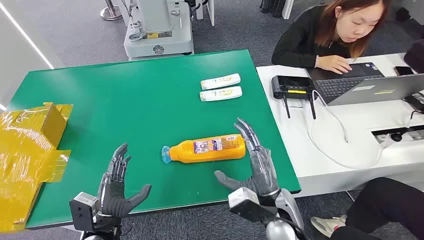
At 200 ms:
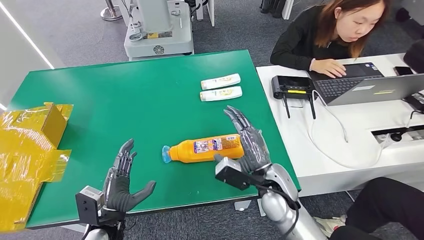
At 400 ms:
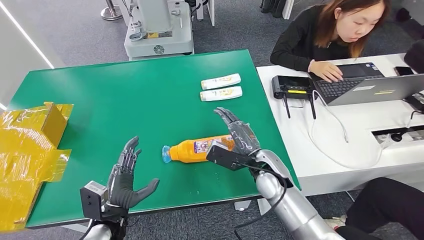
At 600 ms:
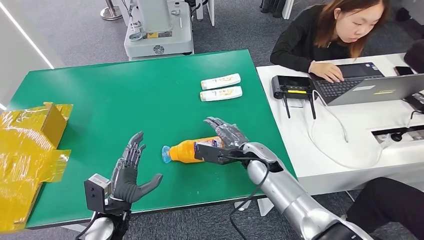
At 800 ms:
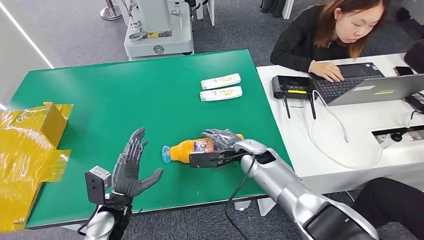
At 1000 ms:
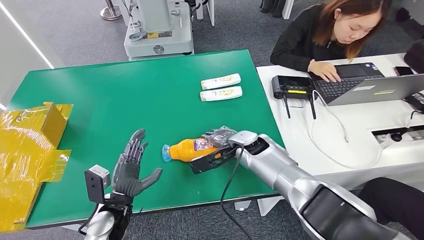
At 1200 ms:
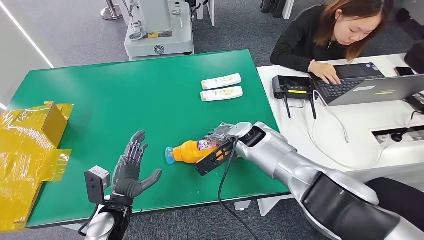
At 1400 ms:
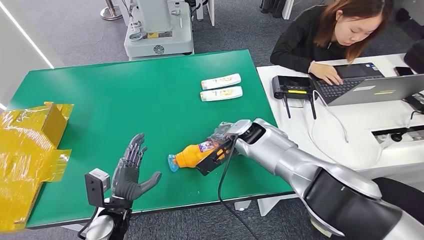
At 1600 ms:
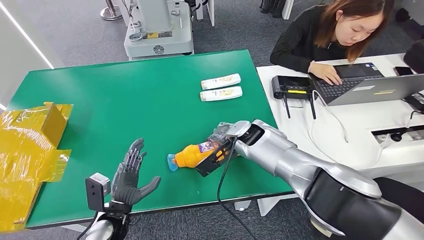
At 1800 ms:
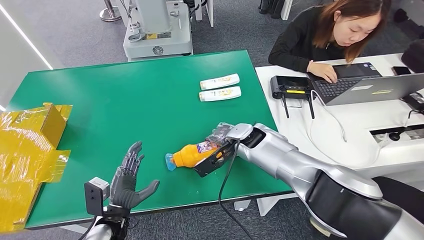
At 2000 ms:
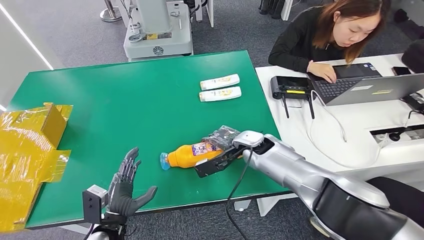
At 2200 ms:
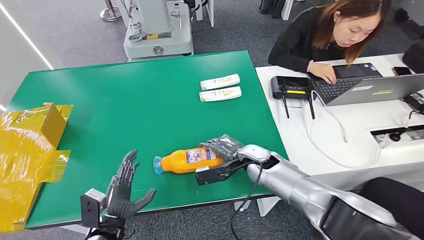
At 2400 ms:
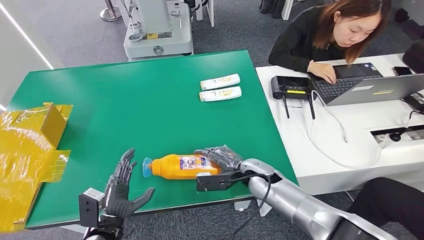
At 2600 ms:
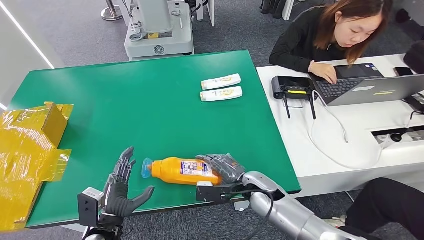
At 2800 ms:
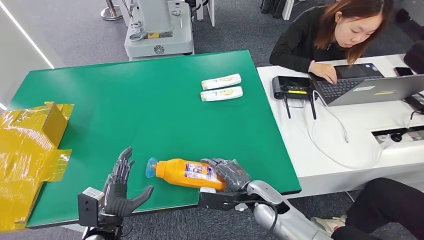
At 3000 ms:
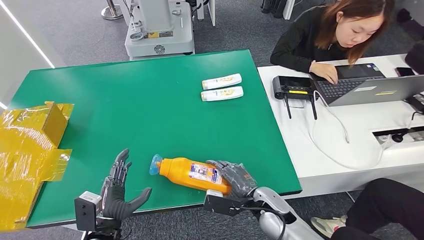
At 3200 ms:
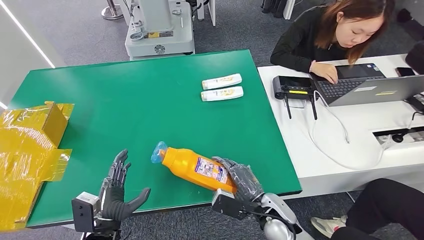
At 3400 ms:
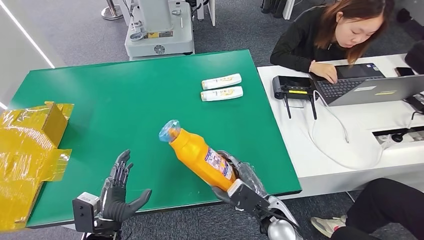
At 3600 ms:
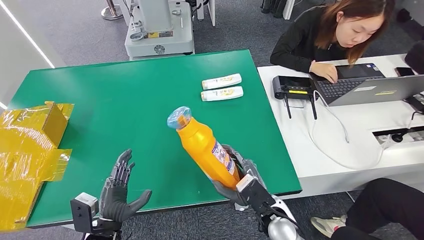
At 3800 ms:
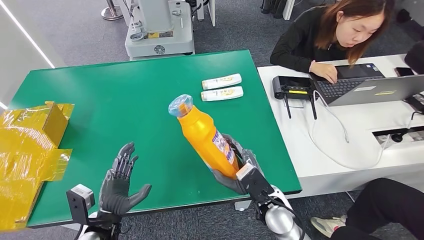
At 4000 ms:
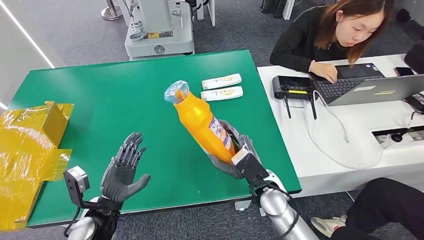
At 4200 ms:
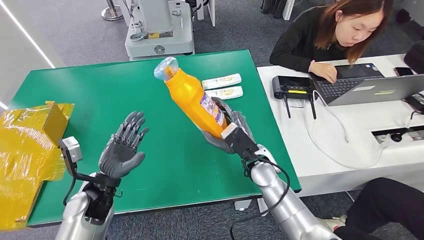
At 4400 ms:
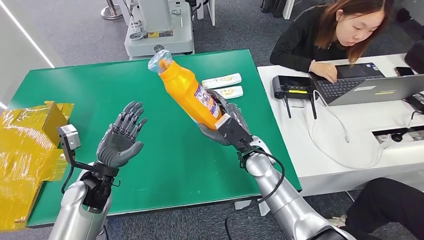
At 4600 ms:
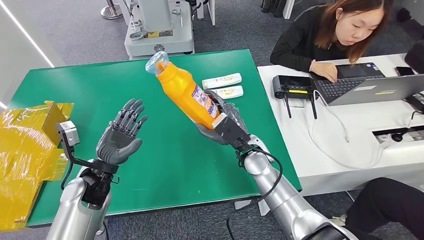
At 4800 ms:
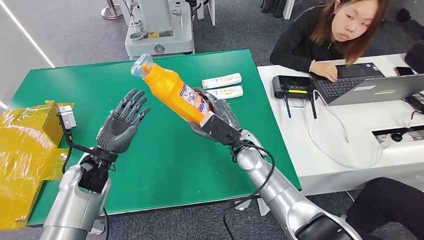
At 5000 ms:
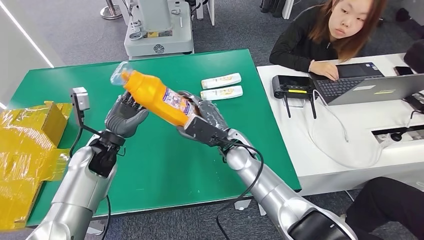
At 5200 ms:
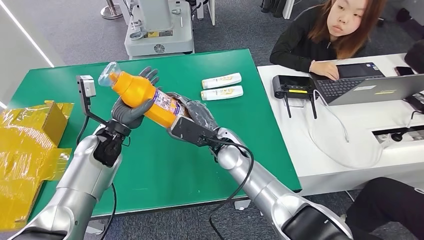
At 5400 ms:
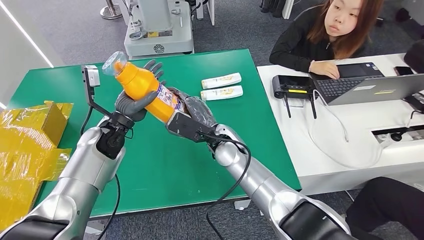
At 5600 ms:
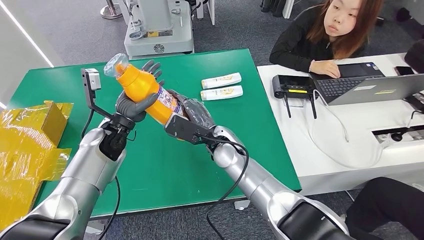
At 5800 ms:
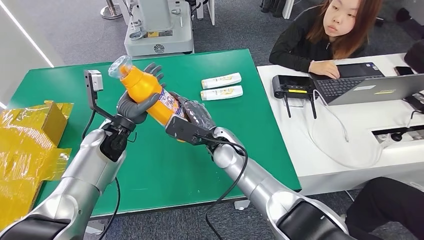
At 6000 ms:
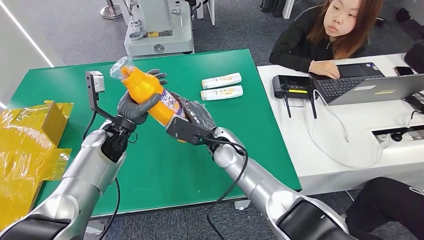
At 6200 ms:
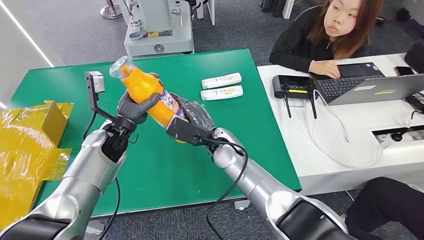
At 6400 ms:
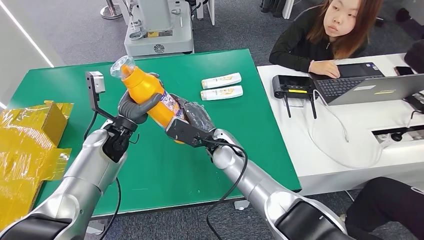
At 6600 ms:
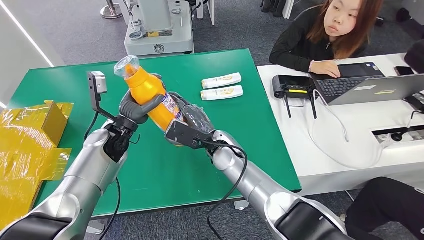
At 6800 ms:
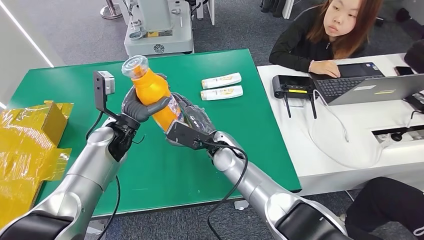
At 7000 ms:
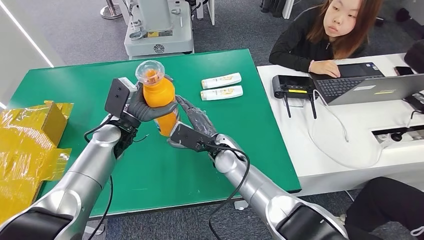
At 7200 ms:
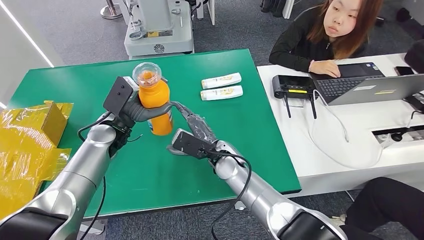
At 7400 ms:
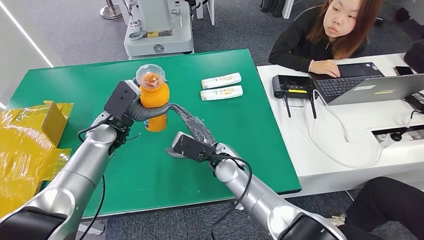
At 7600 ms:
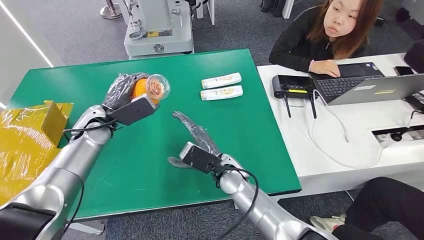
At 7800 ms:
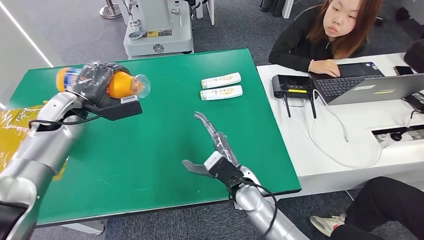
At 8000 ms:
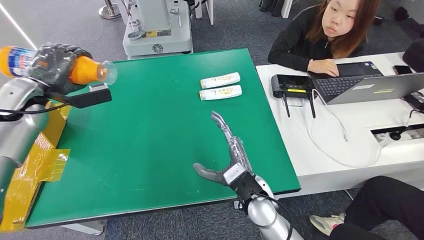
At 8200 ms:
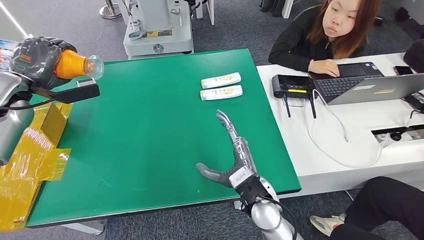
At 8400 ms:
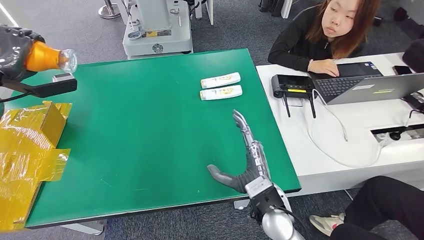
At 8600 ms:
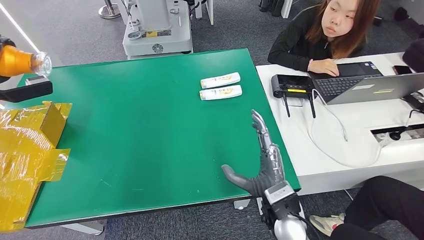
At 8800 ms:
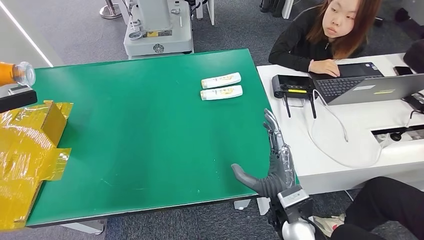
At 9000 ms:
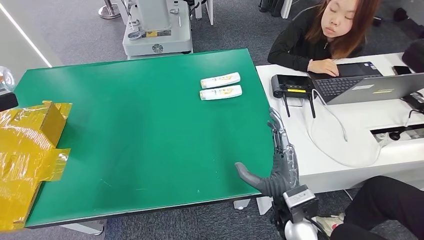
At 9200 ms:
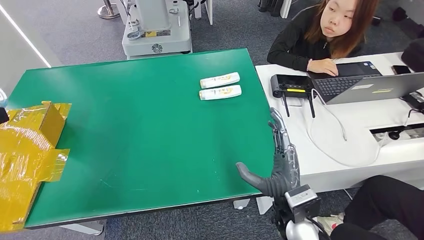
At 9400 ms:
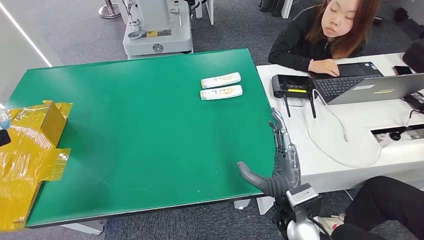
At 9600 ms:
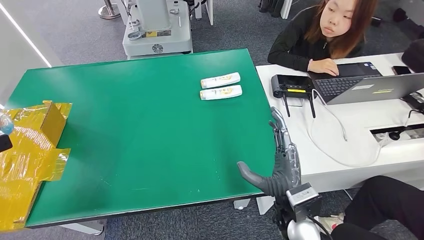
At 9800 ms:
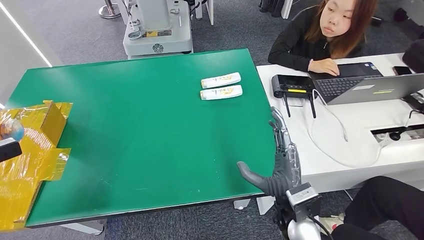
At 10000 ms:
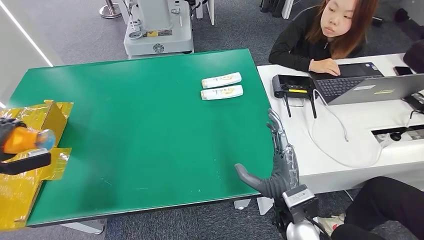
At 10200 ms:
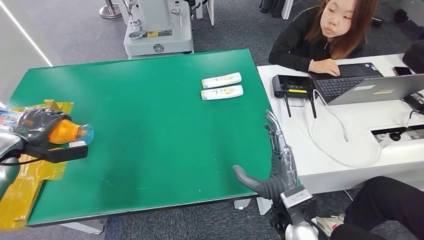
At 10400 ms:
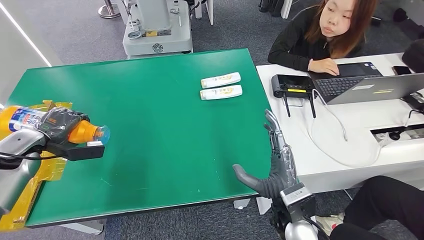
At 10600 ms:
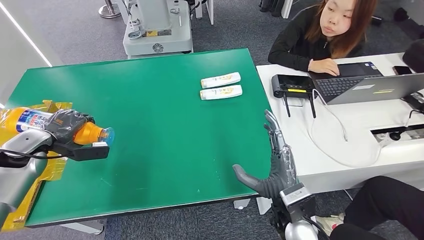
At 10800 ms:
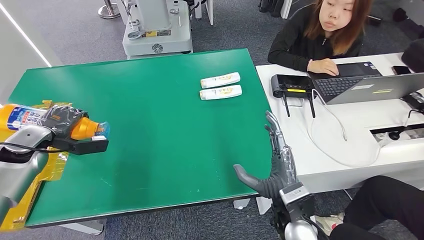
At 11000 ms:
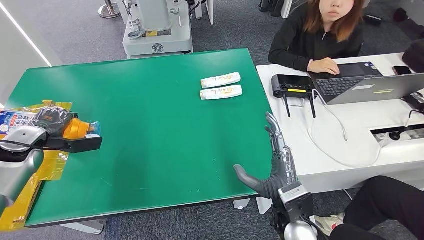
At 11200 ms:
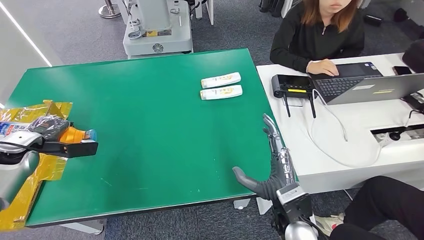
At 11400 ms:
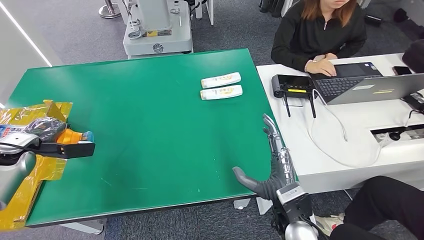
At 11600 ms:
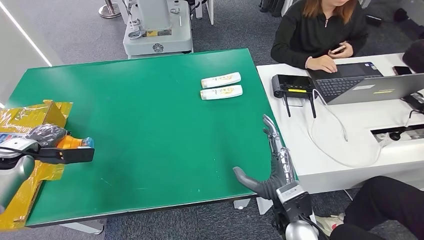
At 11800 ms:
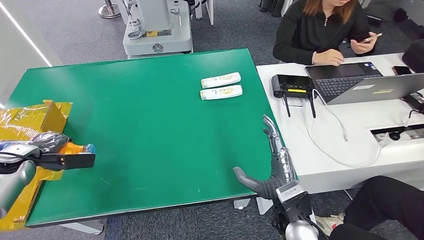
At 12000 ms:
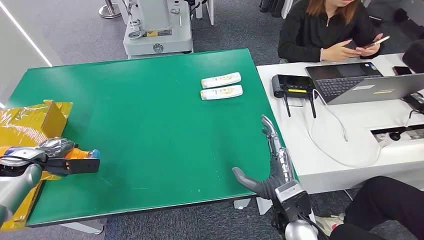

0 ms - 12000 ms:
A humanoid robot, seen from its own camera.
Step, 0 ms - 3800 ms: Pick up the bottle from the table.
3000 ms - 4400 ms: Both hands travel together forward and upward, some 15 cm.
6000 ms - 7600 ms: The right hand is displaced backward and downward by approximately 10 cm. The left hand moves some 5 cm.
9000 ms - 10400 ms: The left hand moves downward and to the right, approximately 20 cm.
10400 ms - 12000 ms: The left hand changes place by some 5 cm.

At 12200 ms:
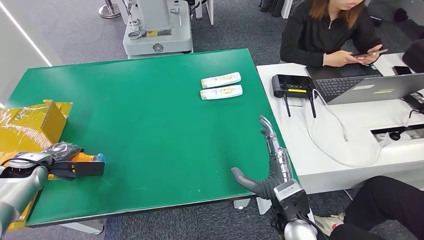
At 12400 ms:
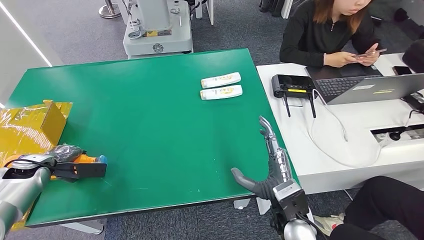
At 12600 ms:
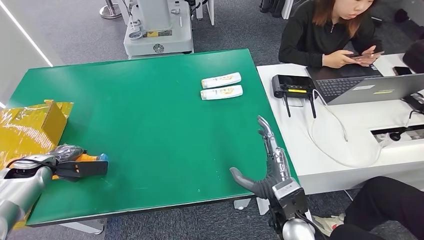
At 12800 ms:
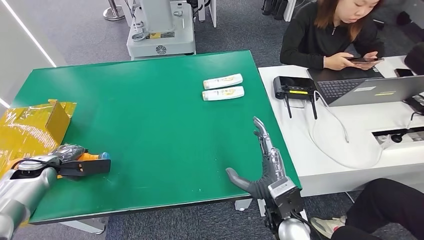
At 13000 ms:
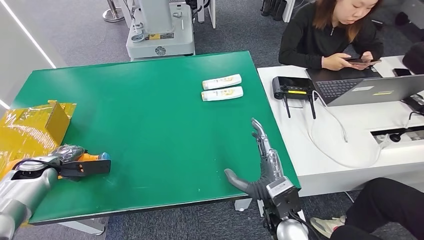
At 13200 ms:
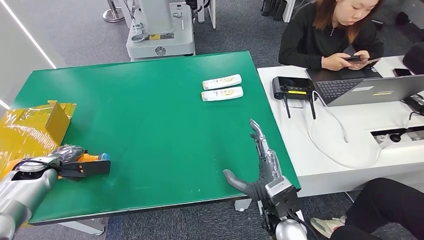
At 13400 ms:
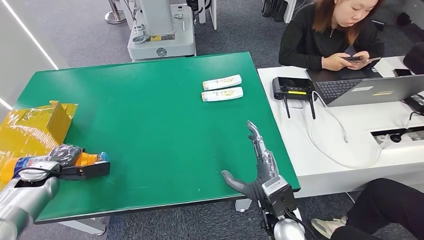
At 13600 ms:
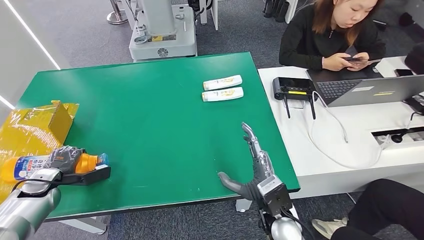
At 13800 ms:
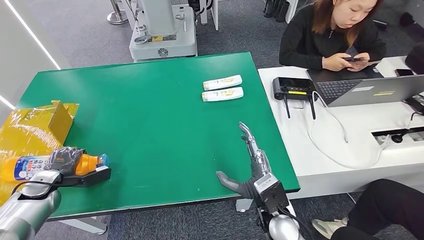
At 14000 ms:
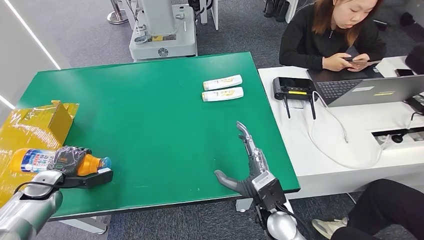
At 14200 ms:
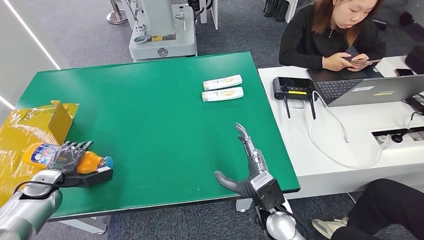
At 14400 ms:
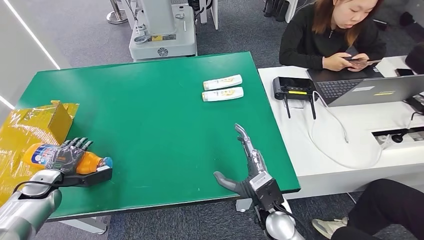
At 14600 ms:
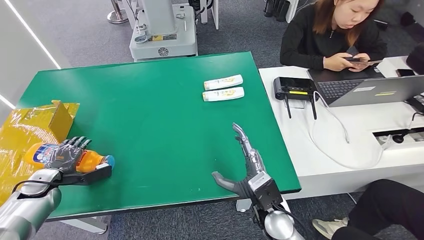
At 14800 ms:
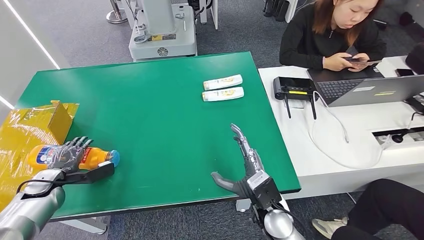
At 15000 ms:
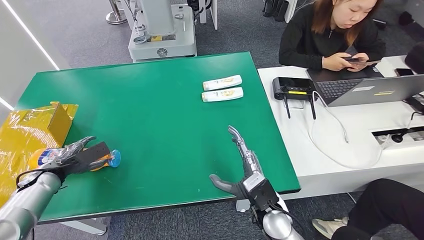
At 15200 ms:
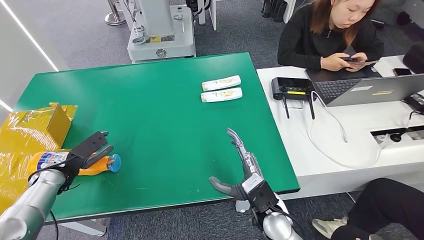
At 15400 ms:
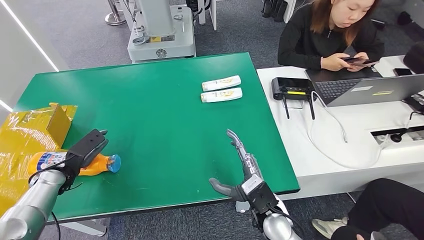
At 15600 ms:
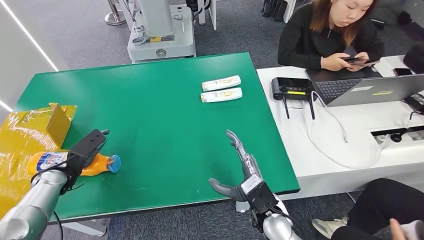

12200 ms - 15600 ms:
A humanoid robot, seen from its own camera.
Step, 12200 ms - 15600 ms: Turn the bottle to the front side.

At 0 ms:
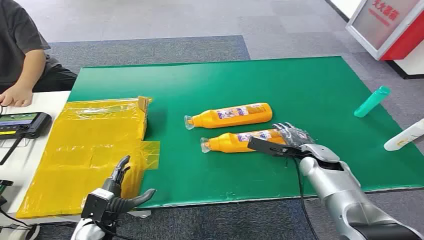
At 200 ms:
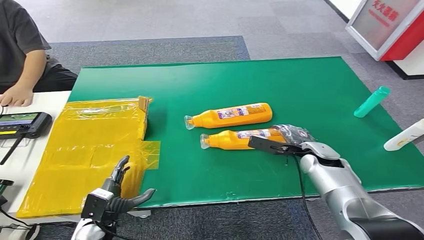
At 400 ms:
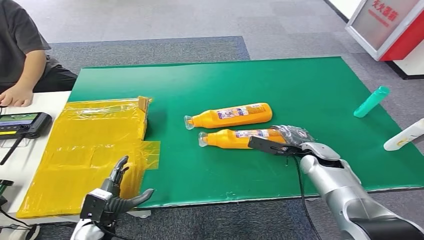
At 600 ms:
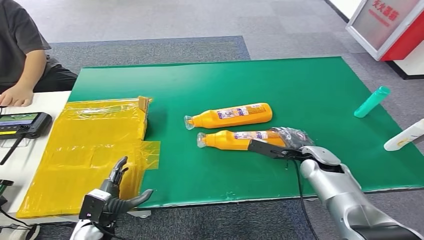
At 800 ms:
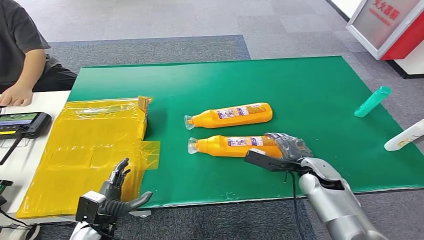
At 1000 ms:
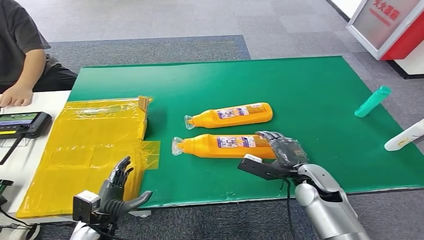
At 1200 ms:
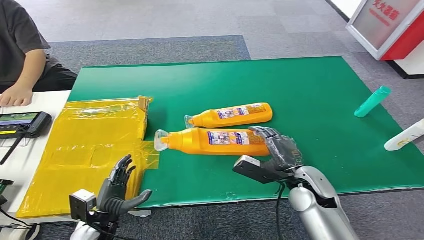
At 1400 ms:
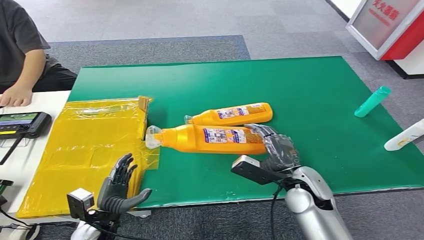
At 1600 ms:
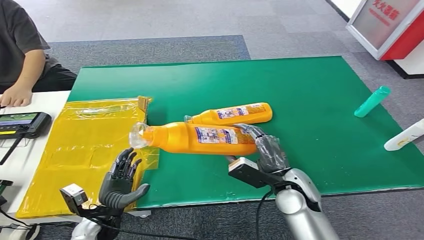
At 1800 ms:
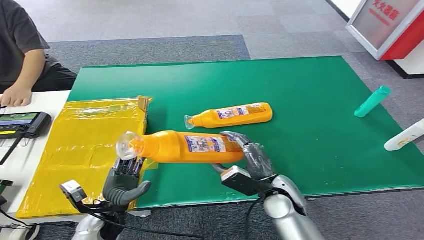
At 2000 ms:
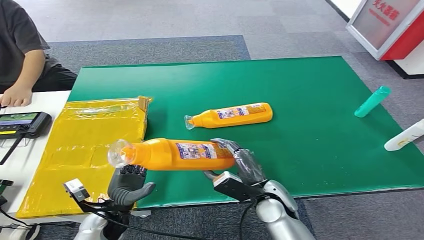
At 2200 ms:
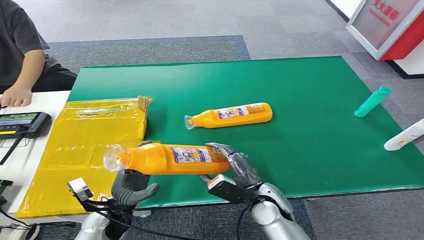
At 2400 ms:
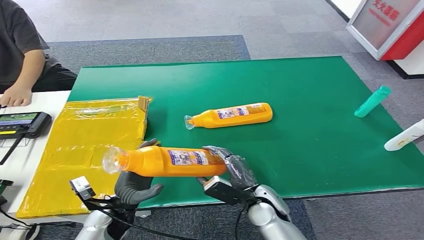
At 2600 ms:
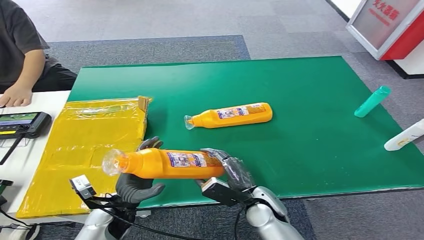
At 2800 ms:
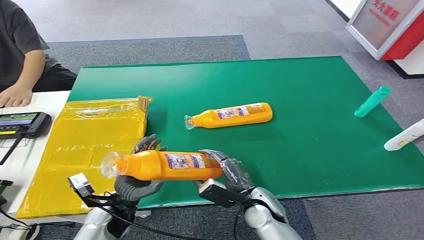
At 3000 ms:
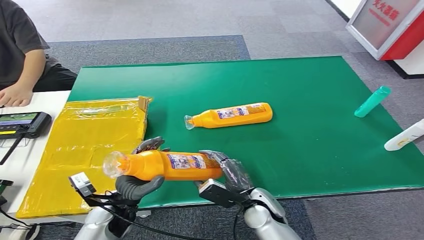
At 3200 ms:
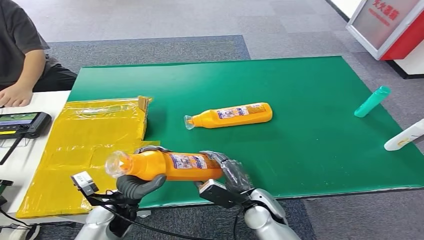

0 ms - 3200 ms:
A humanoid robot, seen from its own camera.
Step, 0 ms - 1600 ms: Pick up the bottle from the table.
1600 ms - 3200 ms: The right hand is displaced downward and to the left by roughly 10 cm; the left hand shifts approximately 5 cm upward.
